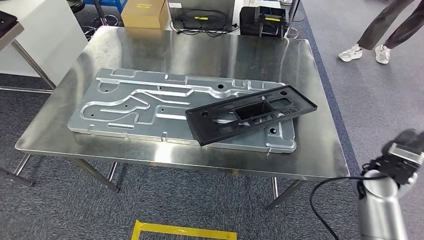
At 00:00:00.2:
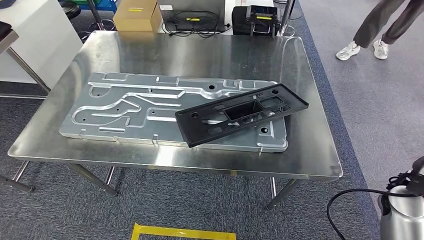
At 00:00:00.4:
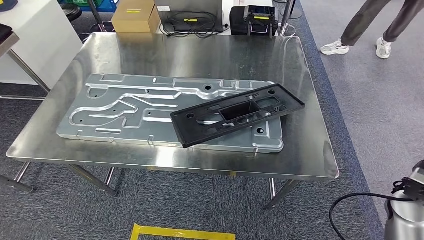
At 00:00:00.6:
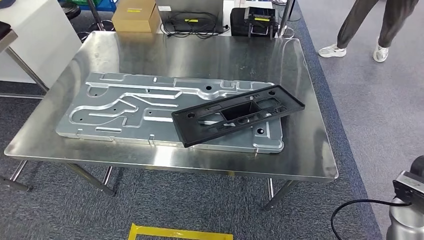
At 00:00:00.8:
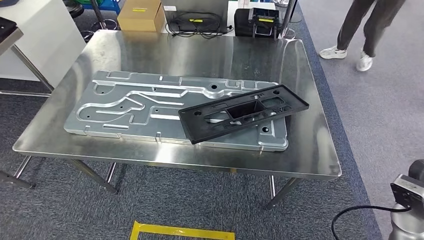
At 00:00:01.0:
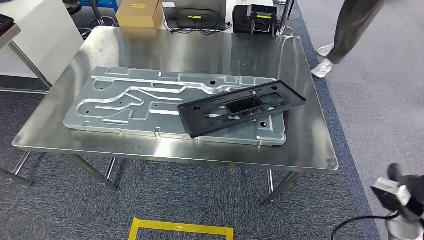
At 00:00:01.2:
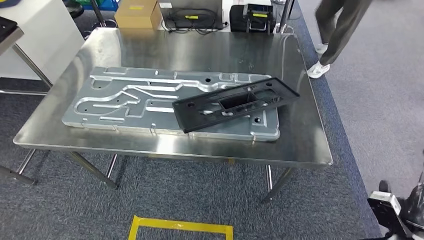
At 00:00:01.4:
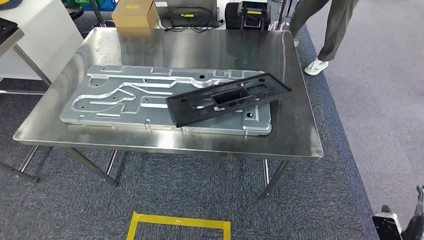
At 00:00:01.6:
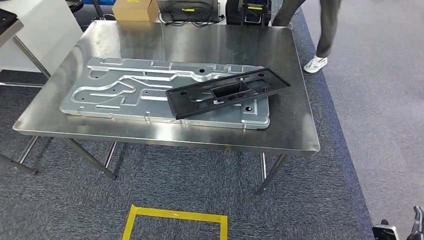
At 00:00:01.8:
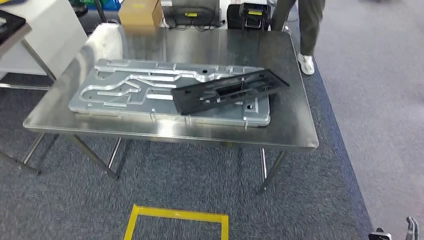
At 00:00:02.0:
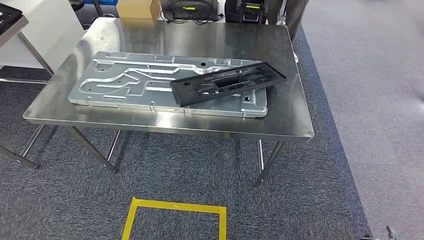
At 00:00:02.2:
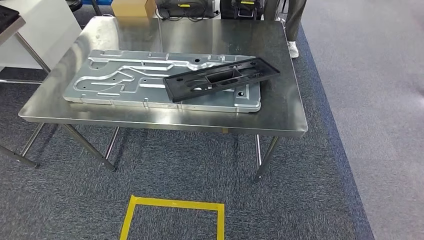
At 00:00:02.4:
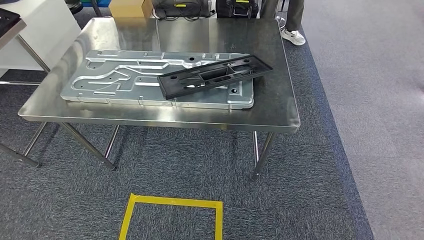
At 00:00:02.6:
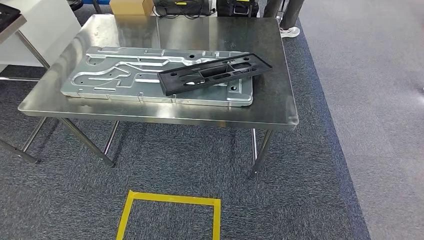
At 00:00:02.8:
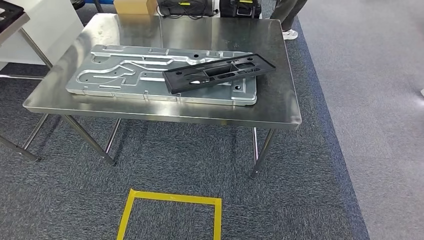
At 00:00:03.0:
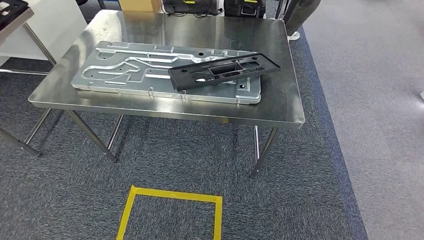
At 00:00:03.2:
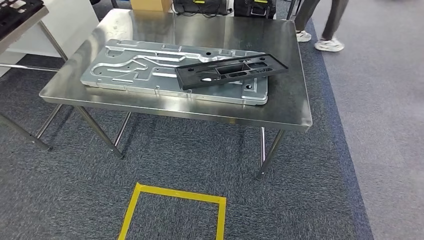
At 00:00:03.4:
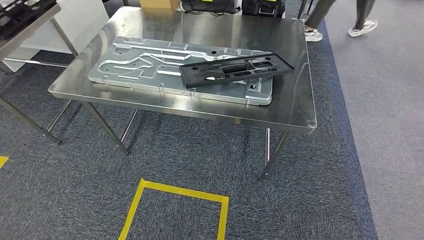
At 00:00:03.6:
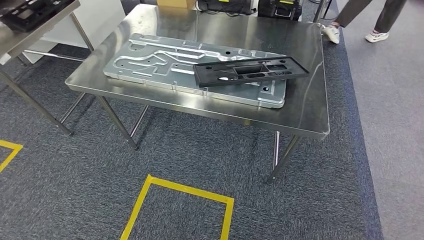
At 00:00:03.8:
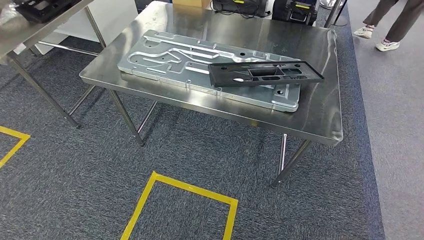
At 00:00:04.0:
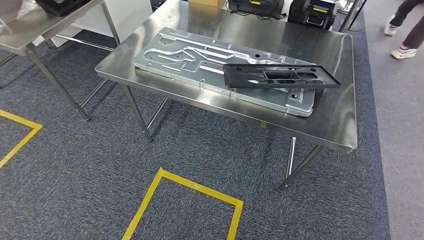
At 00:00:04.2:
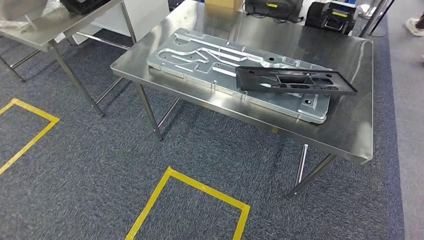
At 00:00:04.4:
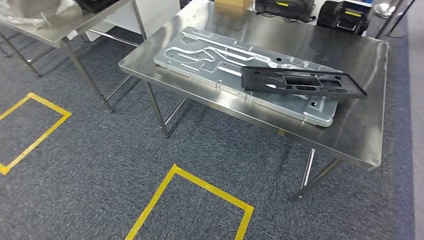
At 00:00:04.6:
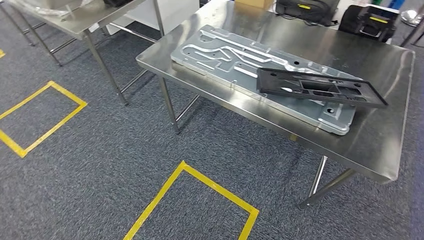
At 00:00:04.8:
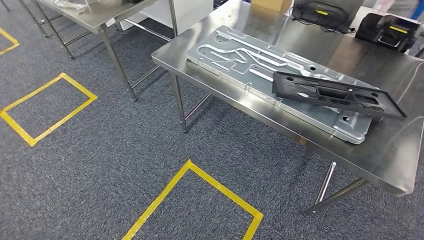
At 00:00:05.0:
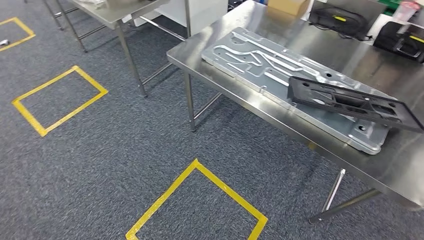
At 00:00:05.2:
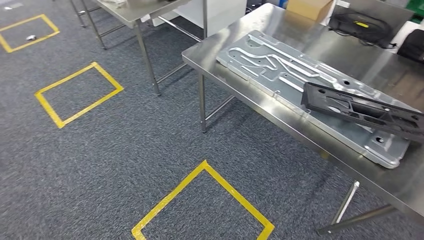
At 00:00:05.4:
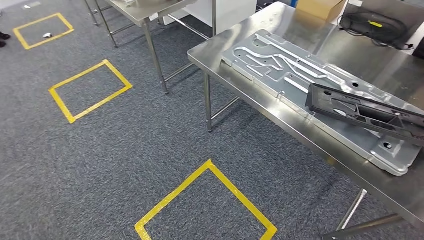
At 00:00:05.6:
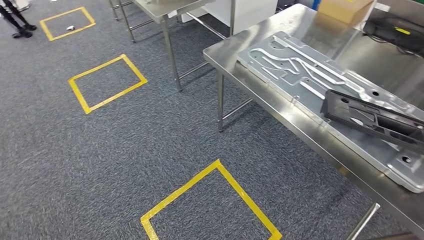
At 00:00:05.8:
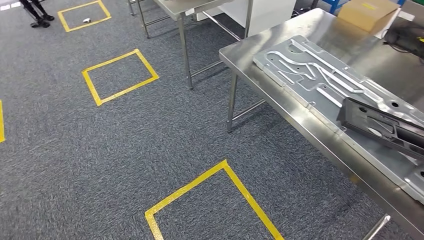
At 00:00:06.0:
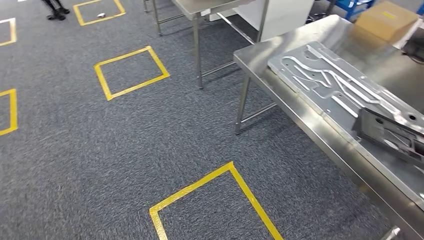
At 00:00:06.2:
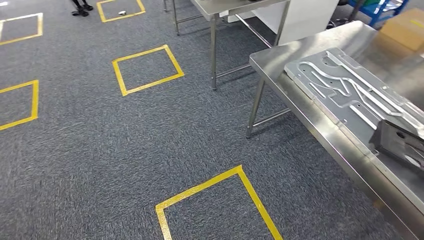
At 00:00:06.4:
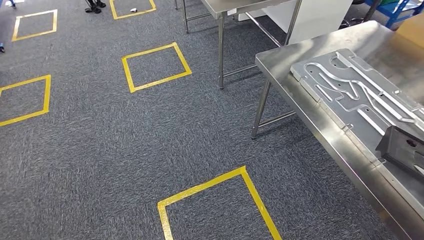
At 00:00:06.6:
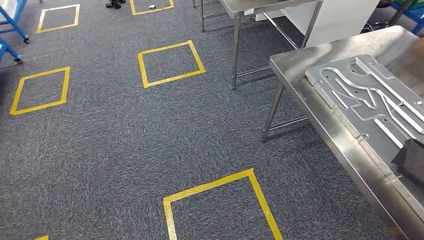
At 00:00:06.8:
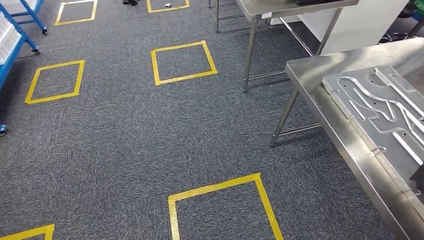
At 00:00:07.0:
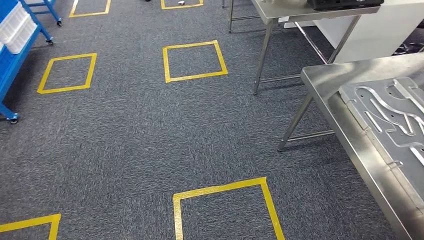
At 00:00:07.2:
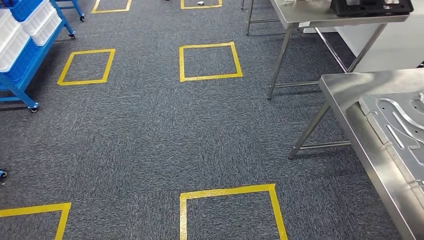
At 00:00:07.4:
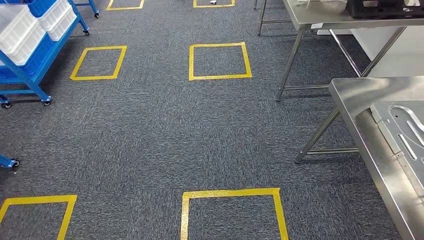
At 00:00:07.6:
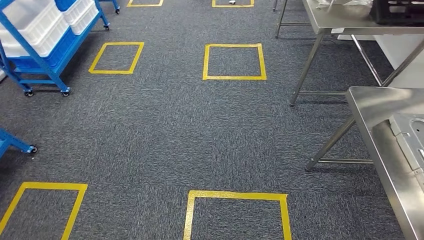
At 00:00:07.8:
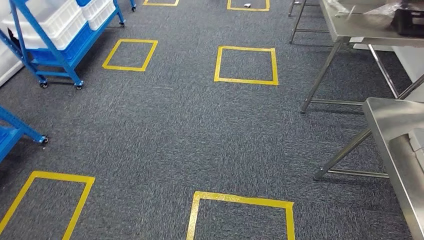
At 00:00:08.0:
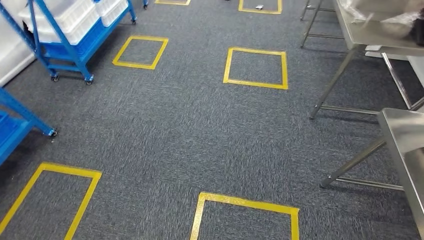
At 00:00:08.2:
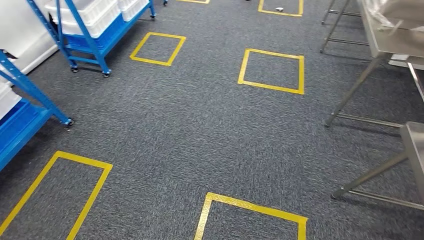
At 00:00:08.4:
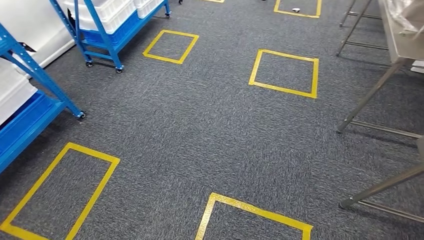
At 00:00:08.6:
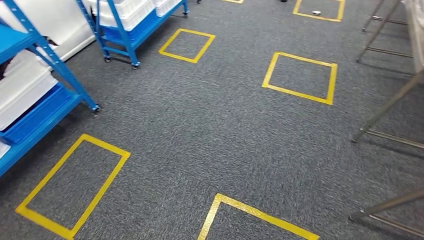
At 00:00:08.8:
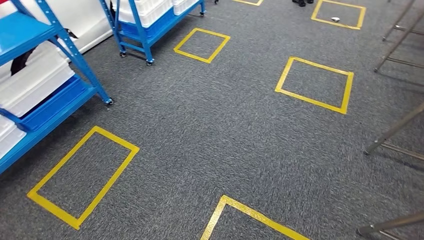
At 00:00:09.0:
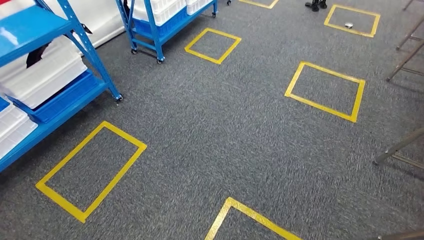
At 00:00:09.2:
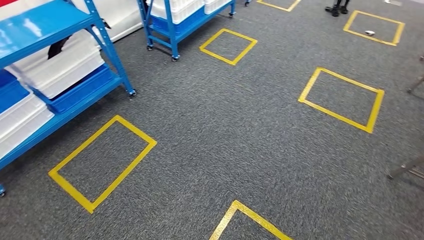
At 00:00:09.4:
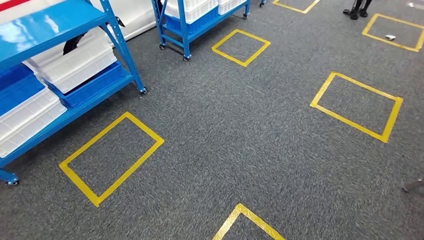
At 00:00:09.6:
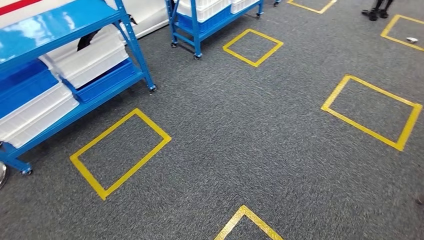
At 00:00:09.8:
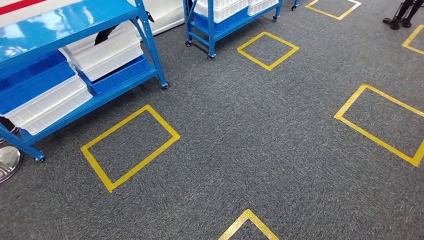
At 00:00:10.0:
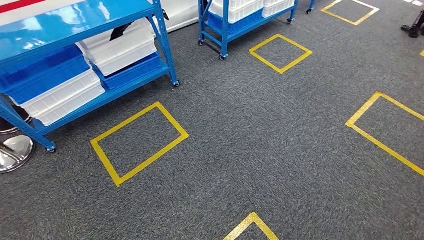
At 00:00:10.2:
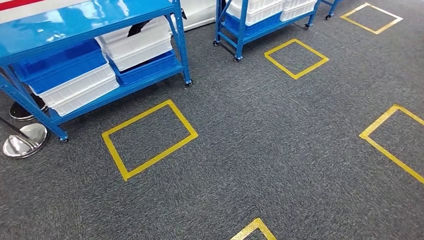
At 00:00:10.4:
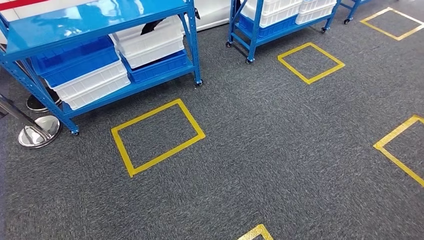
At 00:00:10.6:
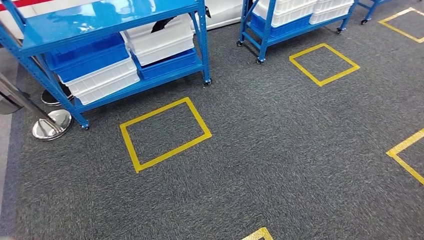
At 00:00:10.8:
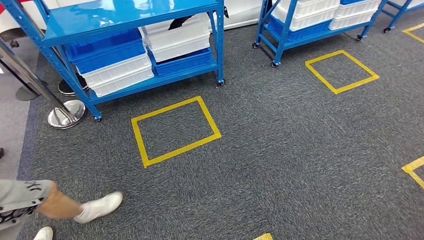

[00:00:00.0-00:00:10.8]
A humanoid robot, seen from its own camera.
Step, 00:00:00.0 to 00:00:01.4: Insert the large material into the corresponding slot on the workbench.

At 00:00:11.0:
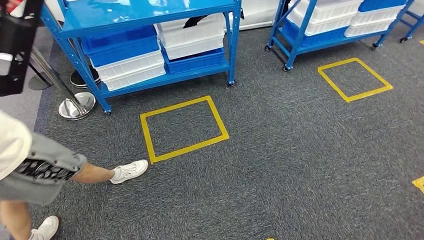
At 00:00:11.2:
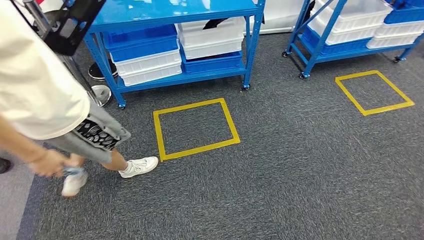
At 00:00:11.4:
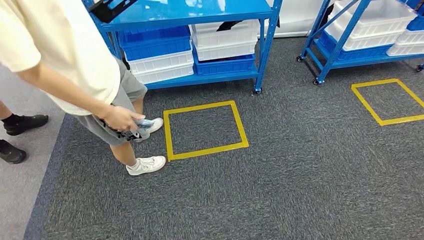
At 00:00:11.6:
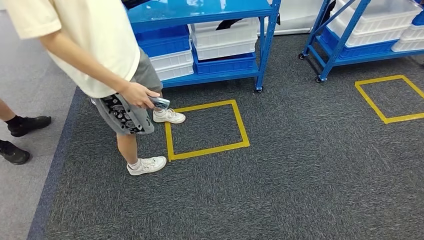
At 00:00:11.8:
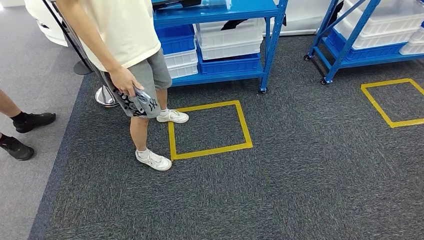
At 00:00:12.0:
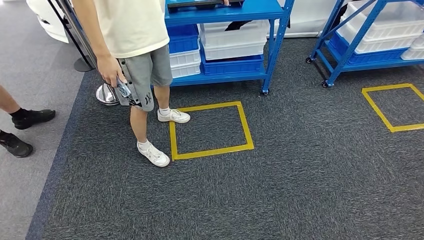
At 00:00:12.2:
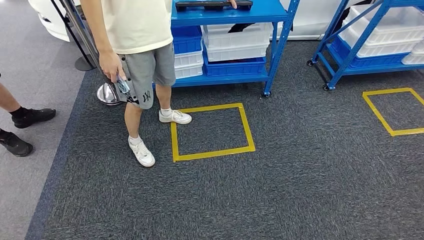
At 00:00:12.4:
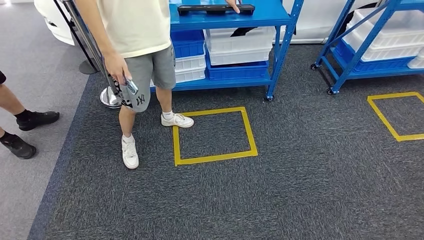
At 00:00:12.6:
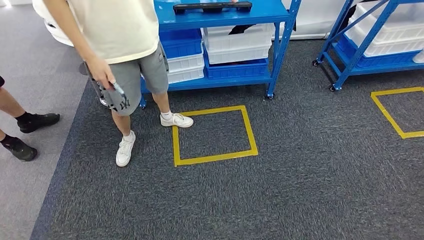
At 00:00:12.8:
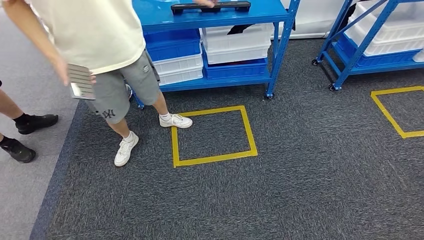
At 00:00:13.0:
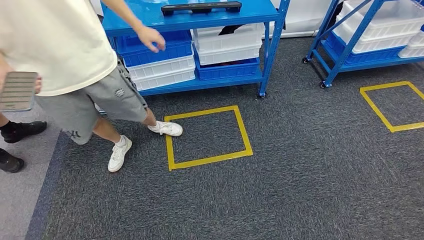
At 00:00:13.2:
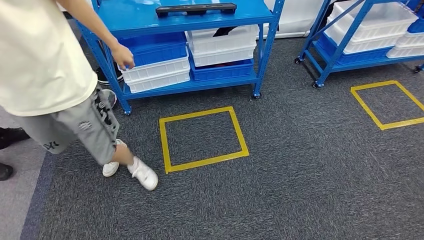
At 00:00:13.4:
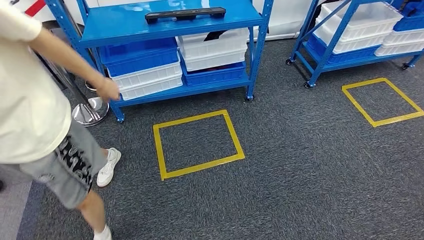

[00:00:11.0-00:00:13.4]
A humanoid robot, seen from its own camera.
Step, 00:00:11.0 to 00:00:13.4: Return to the initial position at the shelf.
